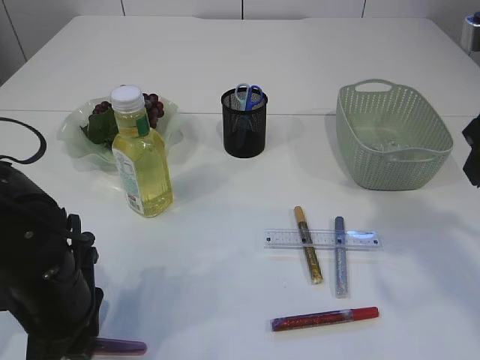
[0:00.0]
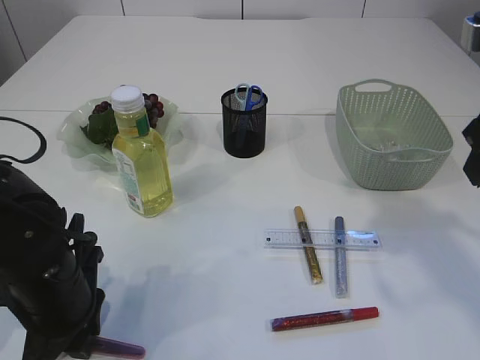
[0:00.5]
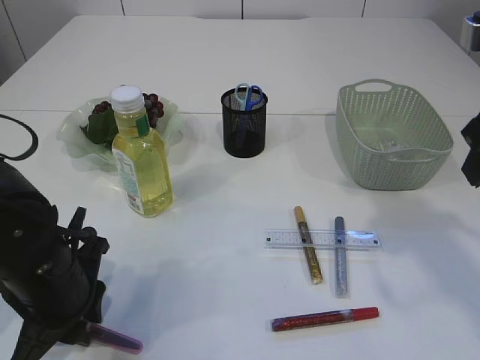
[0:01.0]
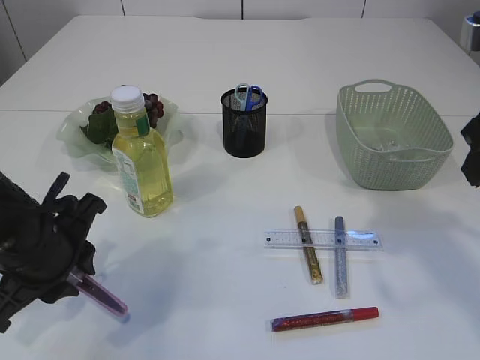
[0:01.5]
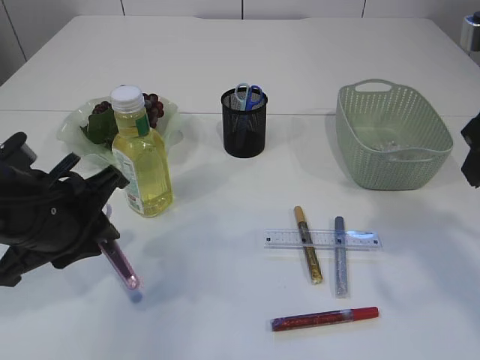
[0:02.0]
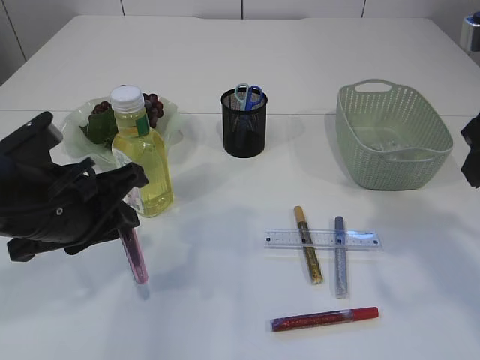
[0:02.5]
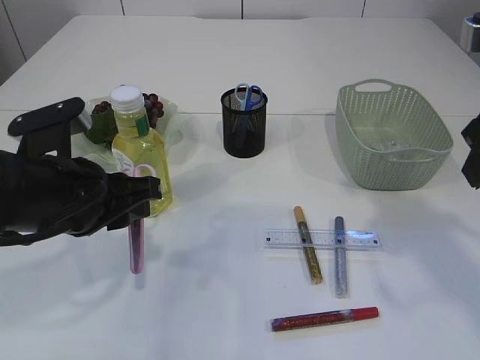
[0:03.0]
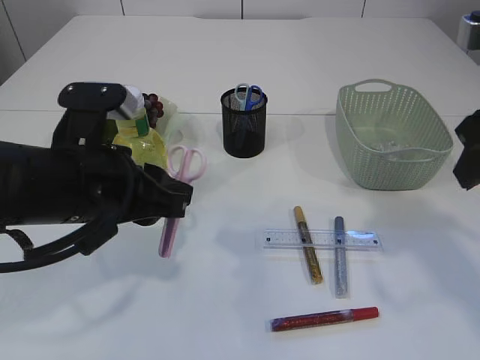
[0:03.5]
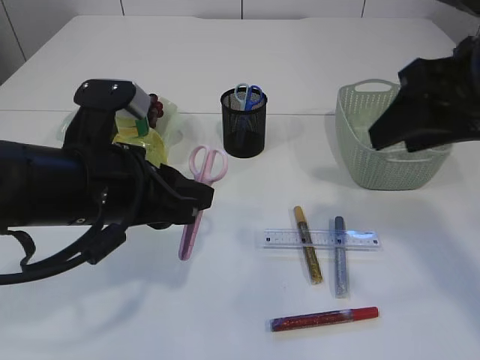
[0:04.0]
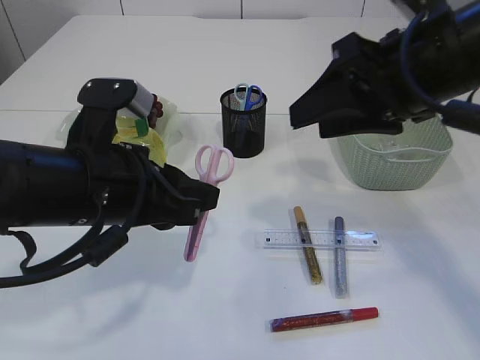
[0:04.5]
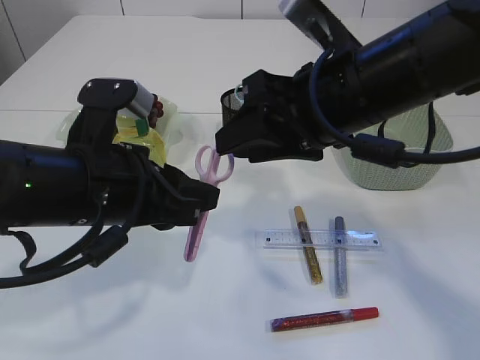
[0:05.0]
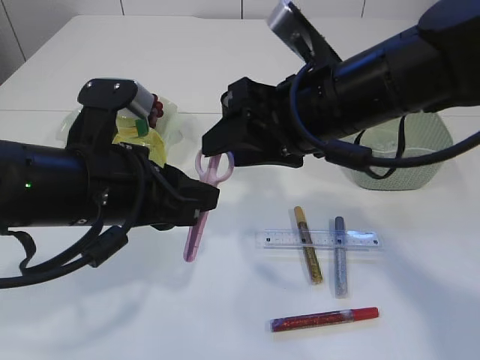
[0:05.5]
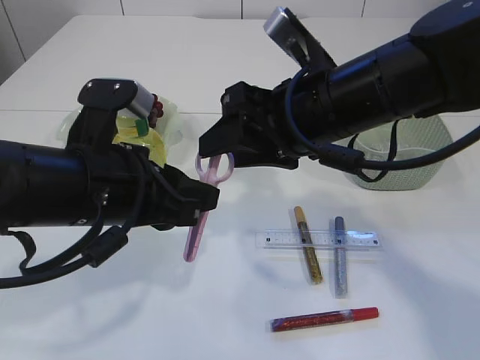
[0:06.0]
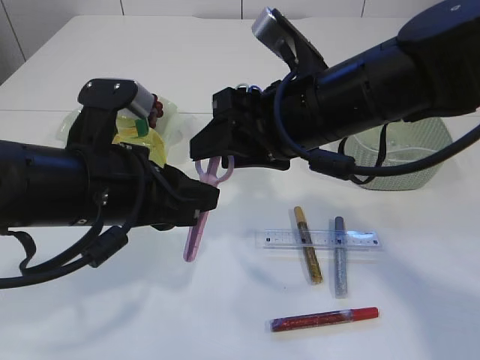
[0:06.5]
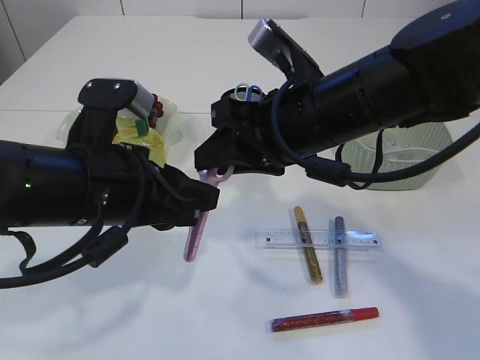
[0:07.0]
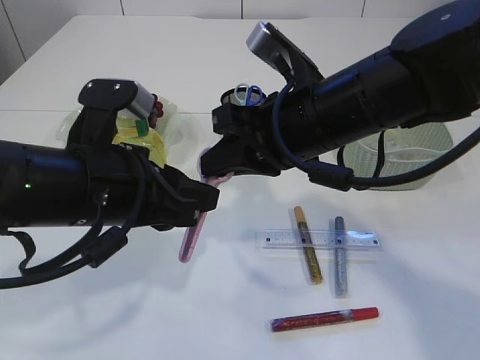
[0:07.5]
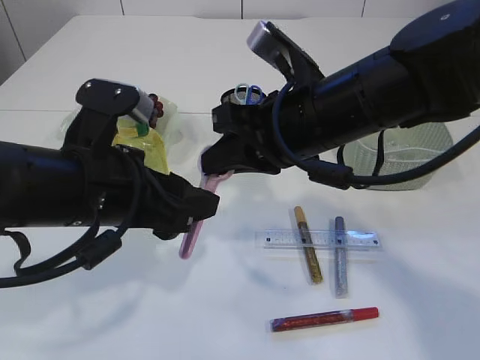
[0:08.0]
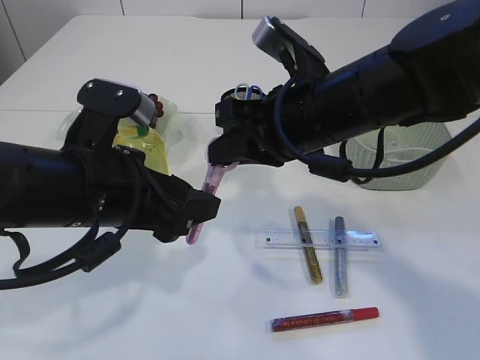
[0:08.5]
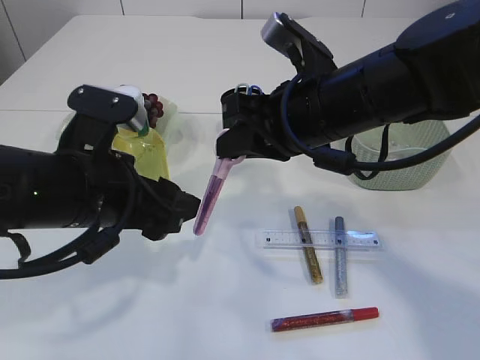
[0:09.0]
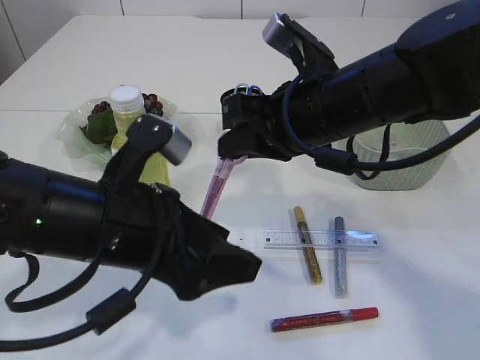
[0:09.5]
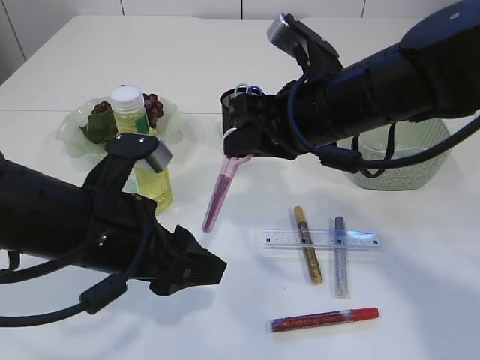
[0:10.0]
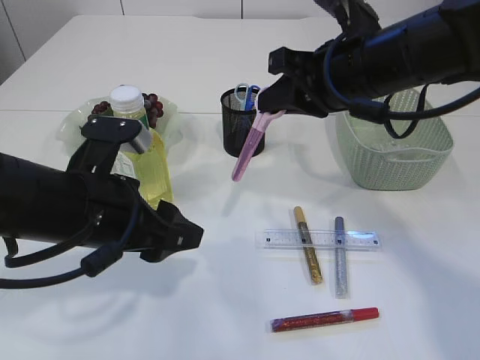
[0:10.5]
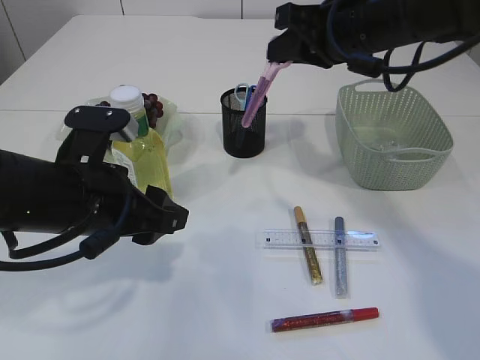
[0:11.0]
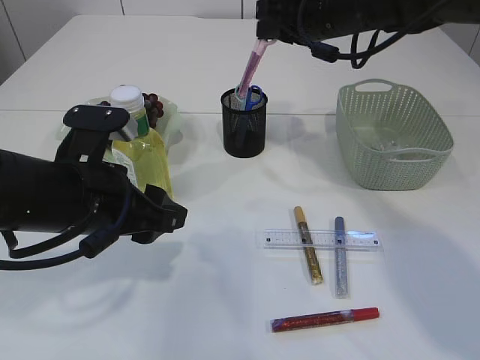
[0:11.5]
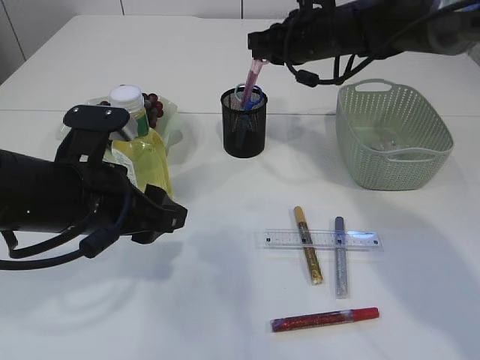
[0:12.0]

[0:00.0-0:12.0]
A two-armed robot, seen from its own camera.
Step, 0.0 to 2.0 s: pick up the pink scissors.
Step, 2.5 to 9.5 s: Hand over the pink scissors.
0.0 to 2.0 s: The left gripper is displaced upward by approximately 10 cm.
2.0 to 4.0 s: The left gripper travels to the right by about 5 cm.
4.0 to 6.0 s: The right gripper moves to the left and downward, about 15 cm.
6.0 to 8.0 s: The right gripper closes its fingers. The left gripper opens.
10.0 to 12.0 s: The right gripper is displaced forward by roughly 20 cm.

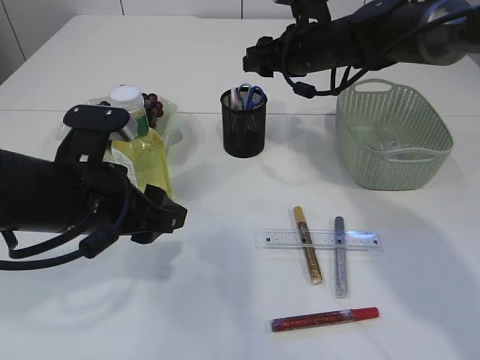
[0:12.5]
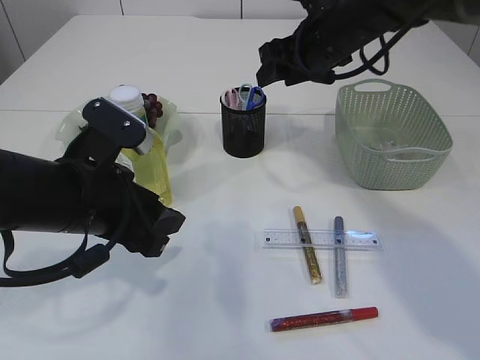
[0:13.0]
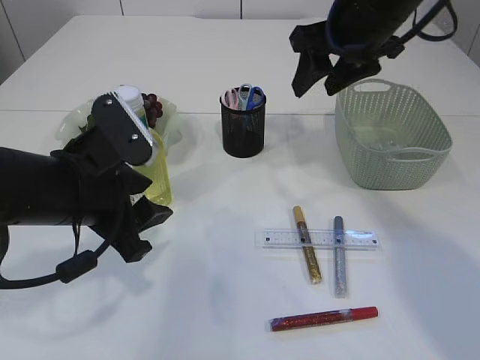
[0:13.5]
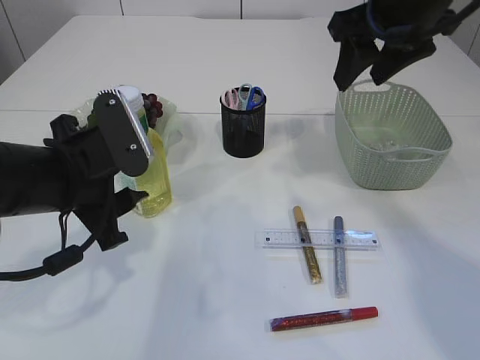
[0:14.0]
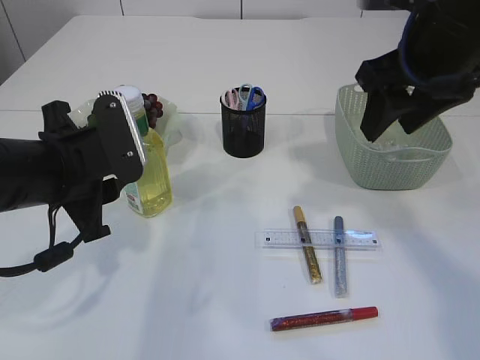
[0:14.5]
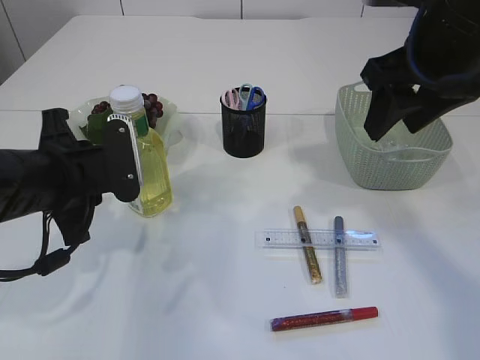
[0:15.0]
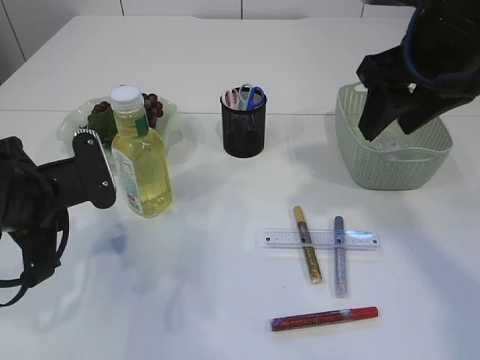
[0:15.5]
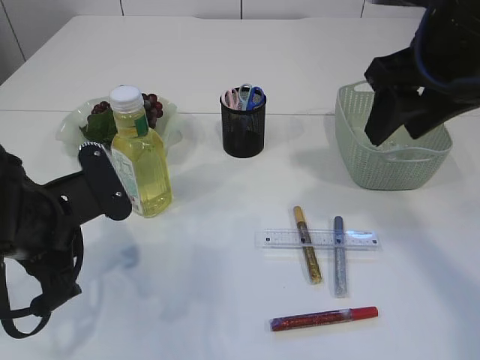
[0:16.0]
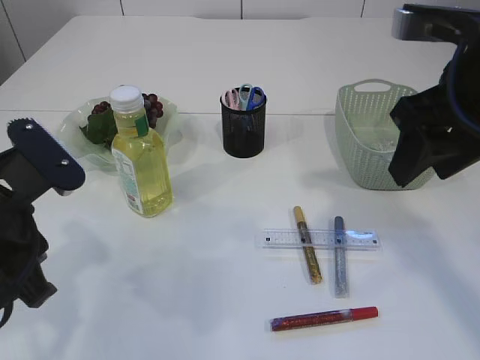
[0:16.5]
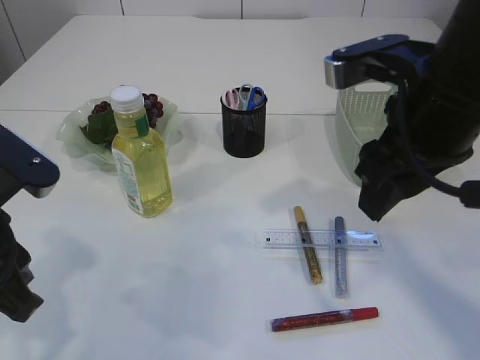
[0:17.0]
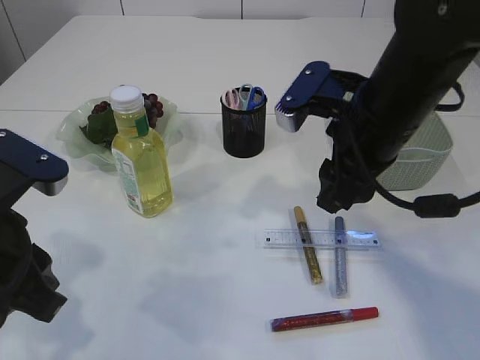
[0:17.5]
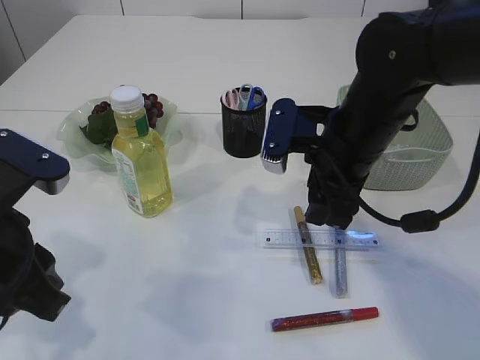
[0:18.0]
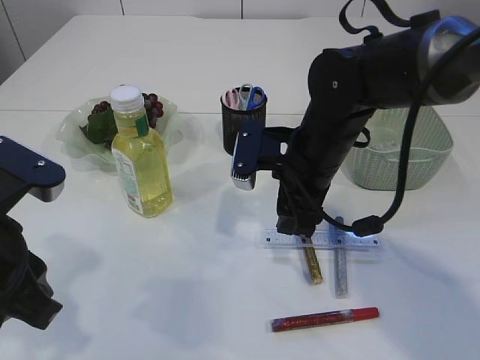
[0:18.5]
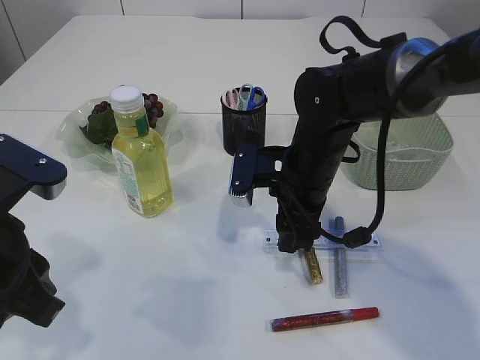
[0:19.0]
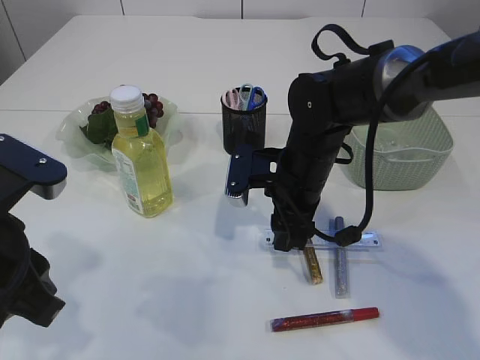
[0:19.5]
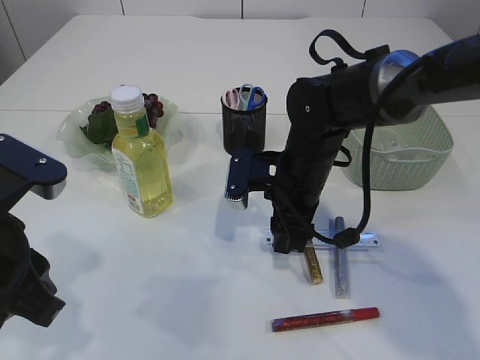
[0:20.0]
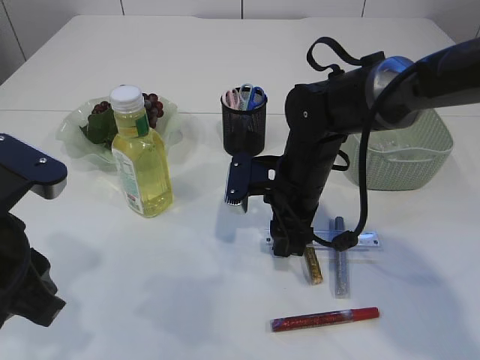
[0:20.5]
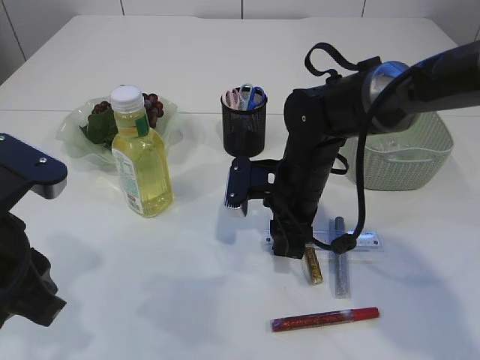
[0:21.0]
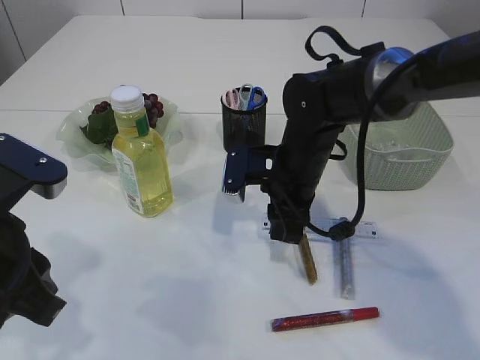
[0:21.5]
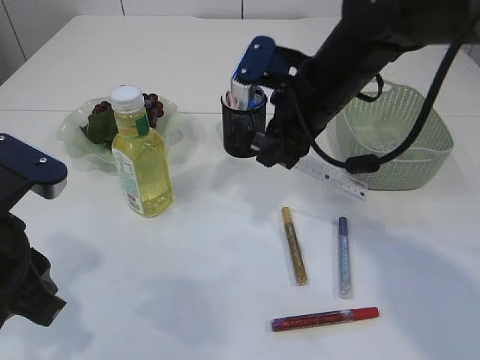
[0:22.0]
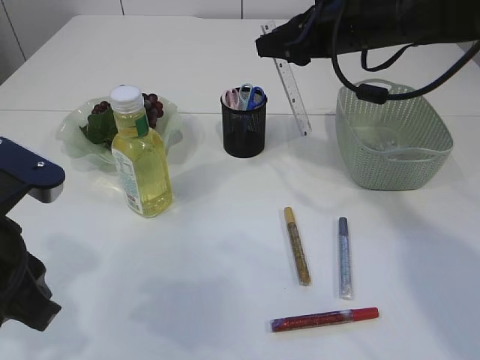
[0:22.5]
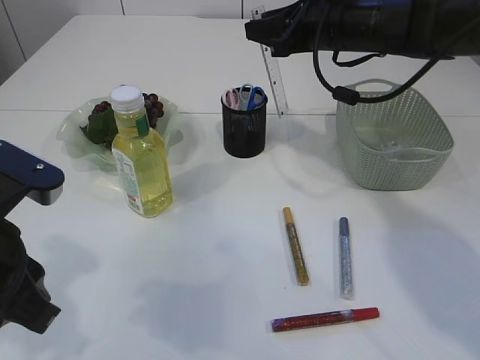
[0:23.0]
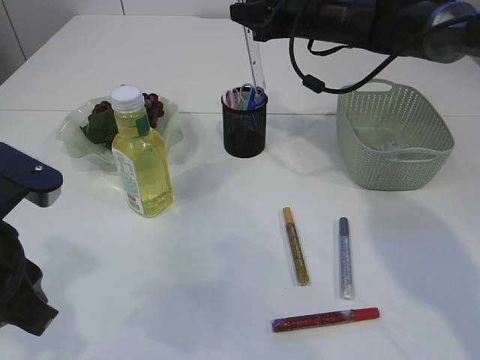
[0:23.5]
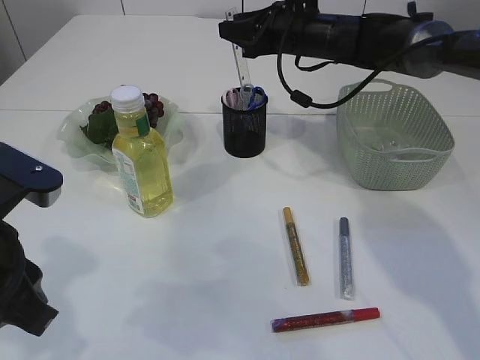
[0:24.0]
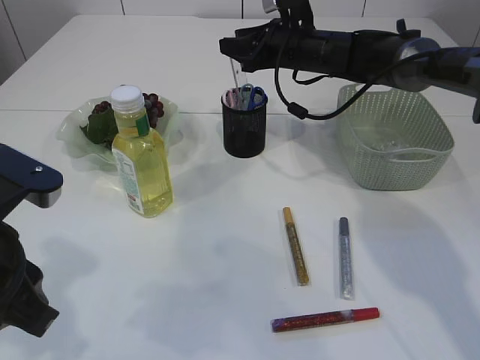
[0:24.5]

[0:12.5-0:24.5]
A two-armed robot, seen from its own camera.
Step, 13.5 to 22.0 s: pick up the ruler.
12.5 to 14.5 s: The right gripper shifts some 20 cm backward and upward.
14.5 to 16.5 s: Both grippers move backward, roughly 5 cm.
16.5 to 18.5 s: The right gripper goes approximately 20 cm downward, to the left and forward.
18.5 to 20.5 s: The right gripper shifts by approximately 5 cm.
20.5 to 22.5 s: The right gripper heads upward and to the right, covering some 15 cm.
22.5 to 24.5 s: The right gripper travels forward and downward by about 15 cm.

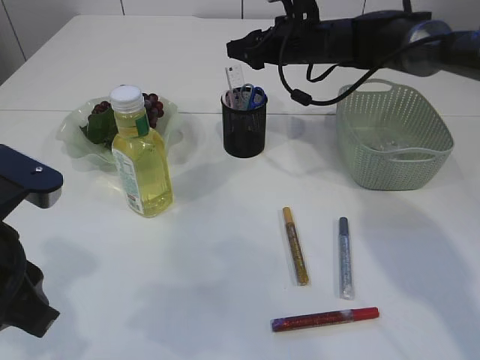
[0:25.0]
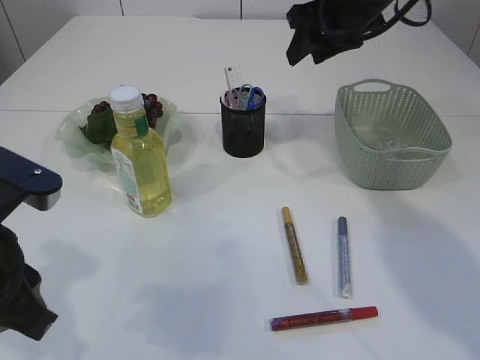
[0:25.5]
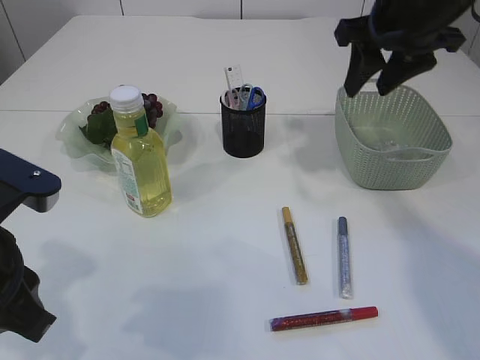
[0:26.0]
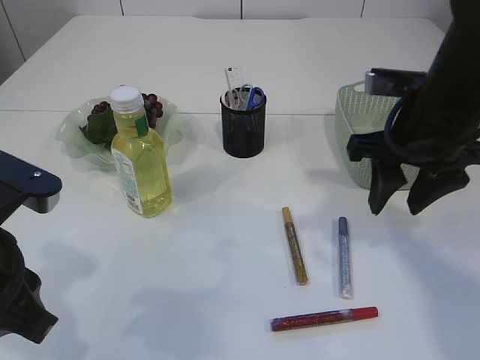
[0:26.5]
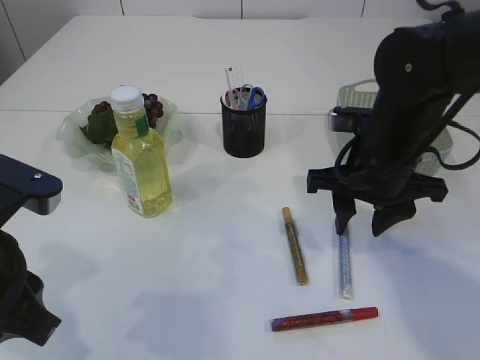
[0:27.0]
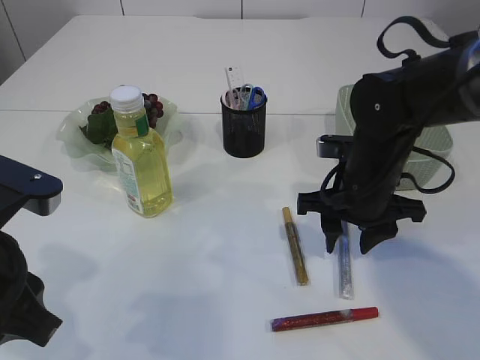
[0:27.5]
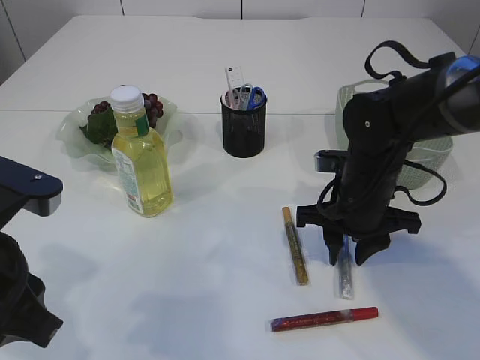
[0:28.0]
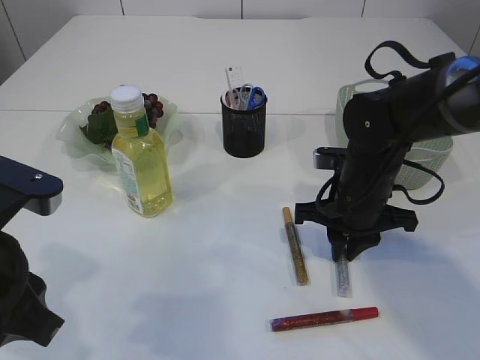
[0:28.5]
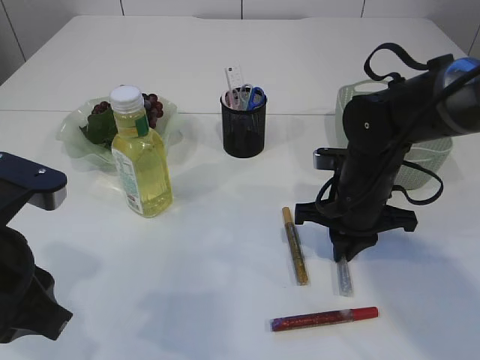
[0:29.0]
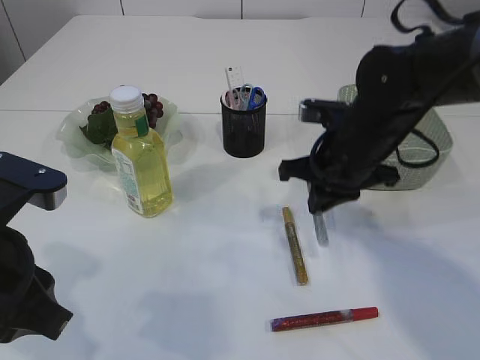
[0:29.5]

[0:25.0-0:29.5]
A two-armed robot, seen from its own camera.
Step, 25.5 to 29.5 s: pick up the silver glue.
25.0 to 27.0 s: The right gripper is displaced backward by approximately 20 cm.
27.0 to 29.5 s: The right gripper travels downward and back again, some 10 cm each way, and closes.
